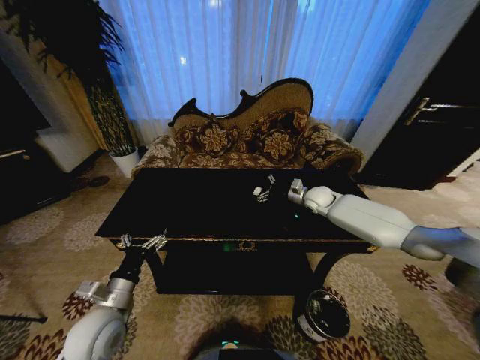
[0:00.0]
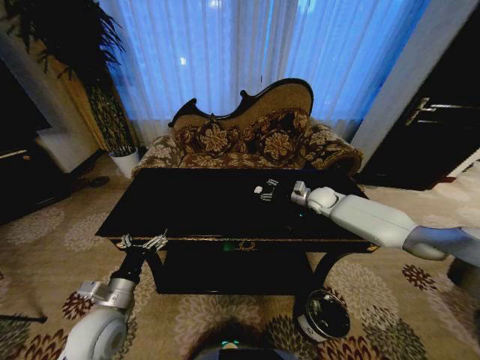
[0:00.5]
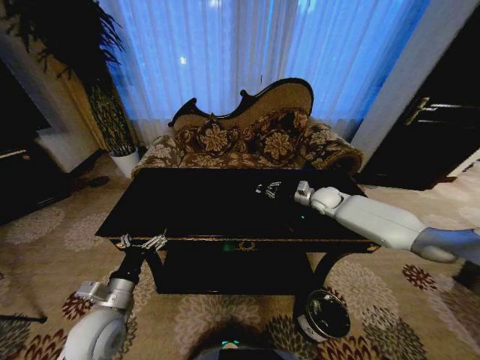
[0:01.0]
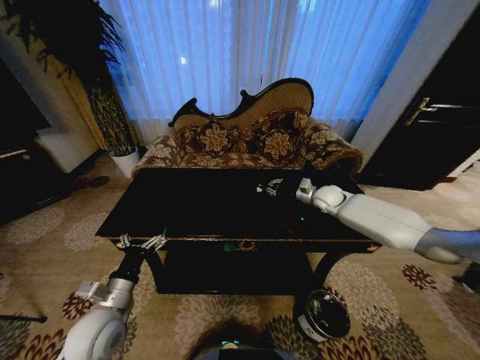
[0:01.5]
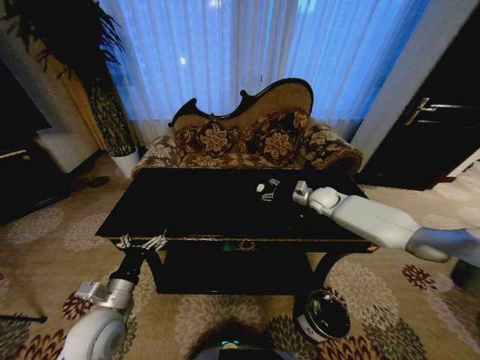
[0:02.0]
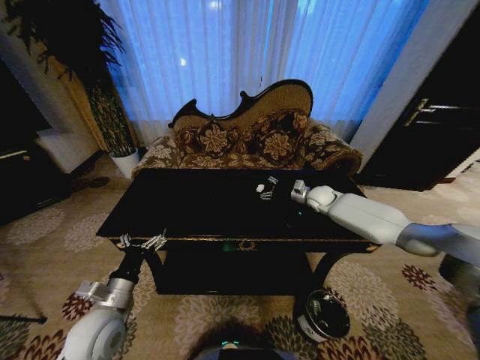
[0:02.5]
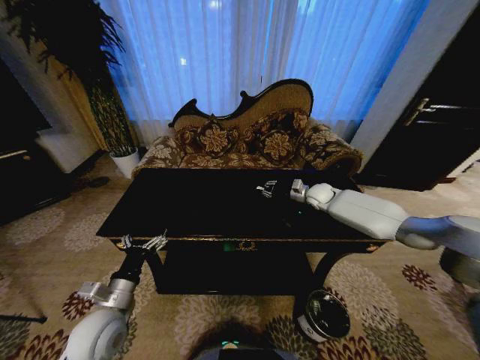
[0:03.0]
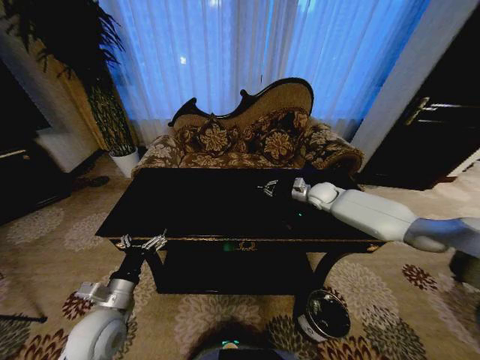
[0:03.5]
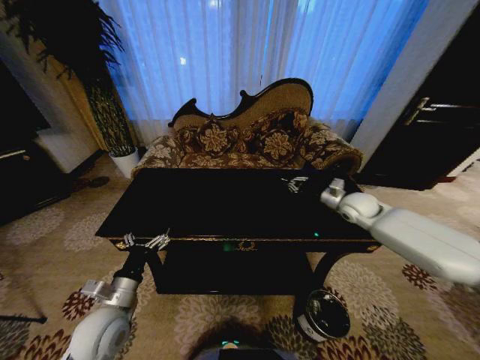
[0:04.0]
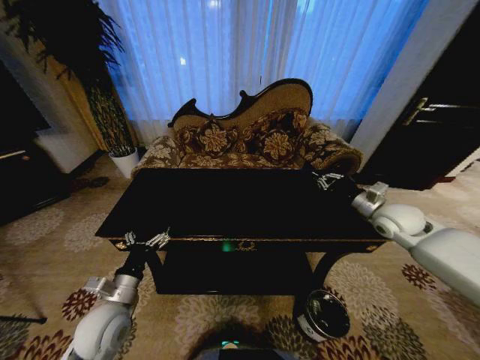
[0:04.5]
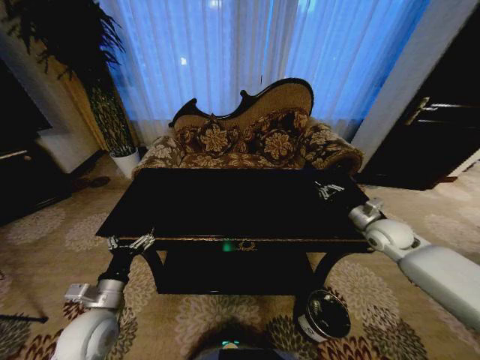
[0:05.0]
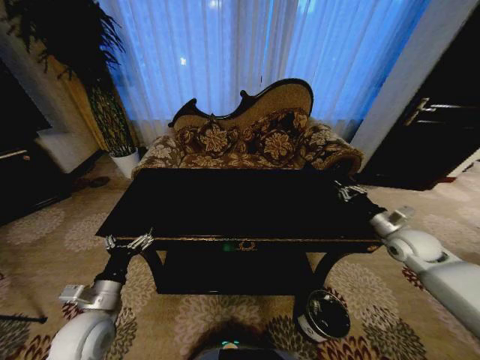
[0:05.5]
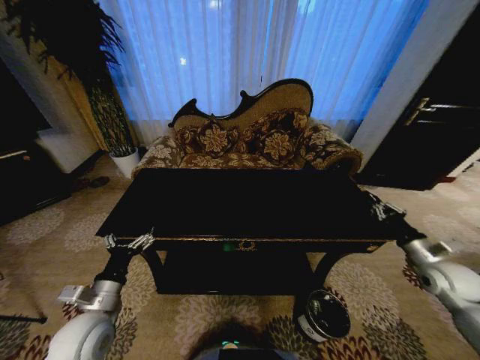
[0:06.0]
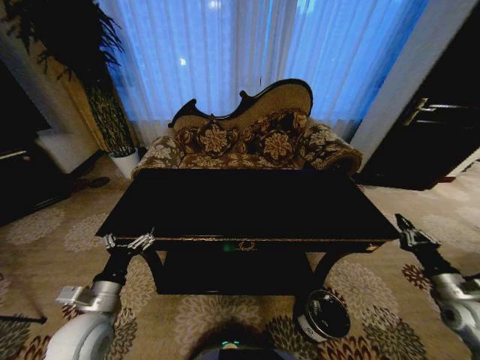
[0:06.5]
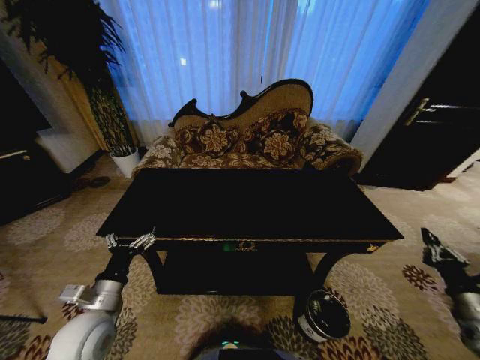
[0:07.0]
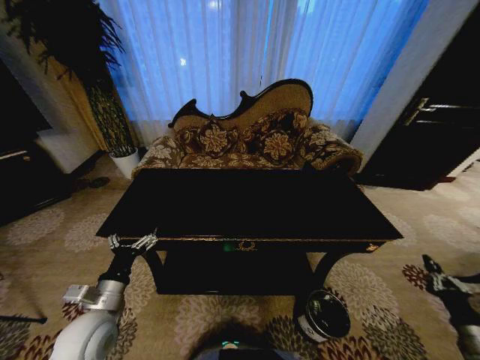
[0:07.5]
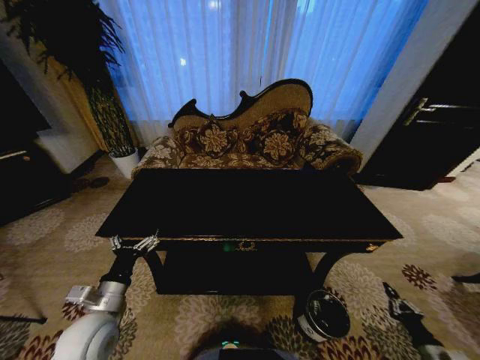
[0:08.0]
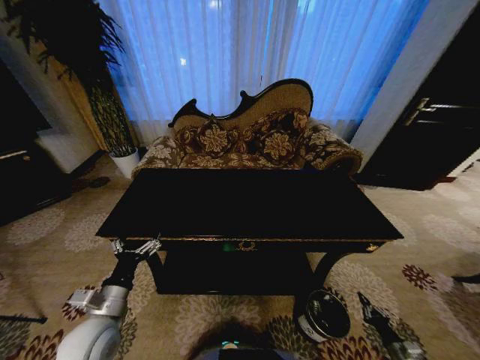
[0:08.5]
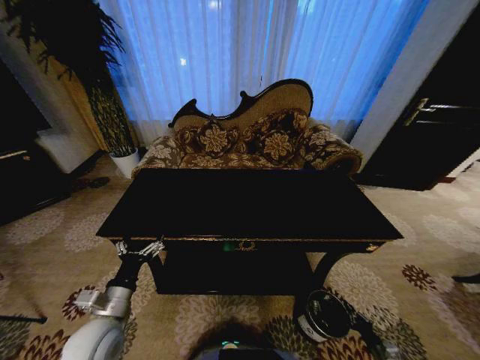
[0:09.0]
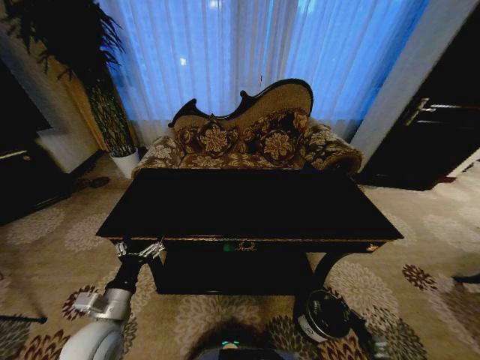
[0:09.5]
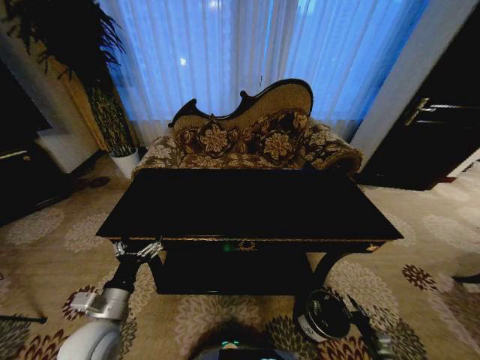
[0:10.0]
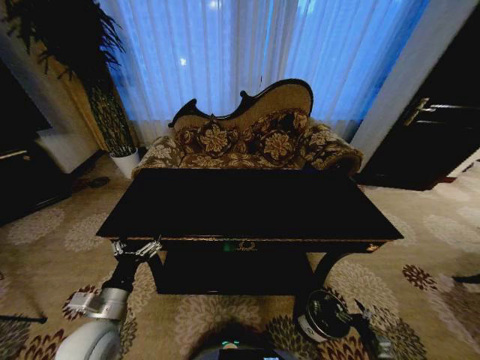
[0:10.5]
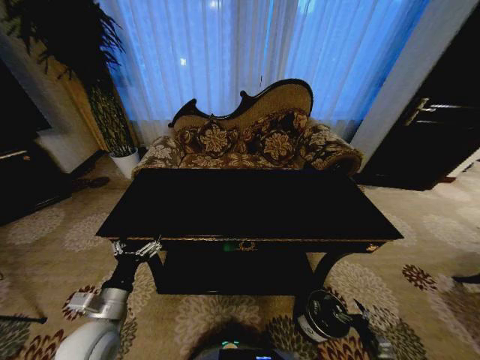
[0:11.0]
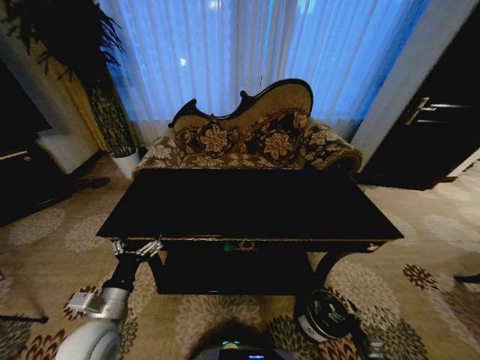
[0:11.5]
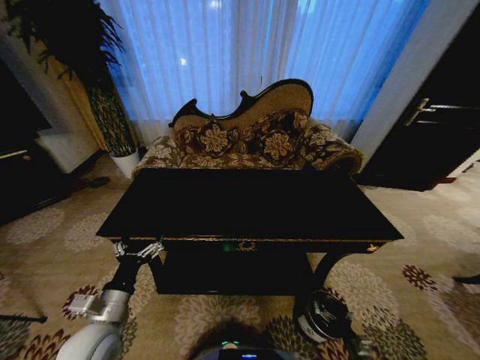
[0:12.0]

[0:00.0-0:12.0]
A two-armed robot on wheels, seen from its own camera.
Task of the whole recording: Move to the front of the table and place the trash on the table into the trash bin.
0:00.0 to 0:02.0: The right gripper closes, then reopens.
0:02.0 to 0:04.0: The right gripper travels backward and to the right by roughly 10 cm, and closes its fingers.
0:04.0 to 0:06.0: The right gripper is displaced backward and to the right by approximately 25 cm.
0:06.0 to 0:08.0: The right gripper heads downward and backward, covering some 30 cm.
0:08.0 to 0:10.0: The right gripper goes approximately 15 cm downward, and opens up.
0:10.0 to 0:12.0: The right gripper heads to the left, covering roughly 5 cm, and opens.

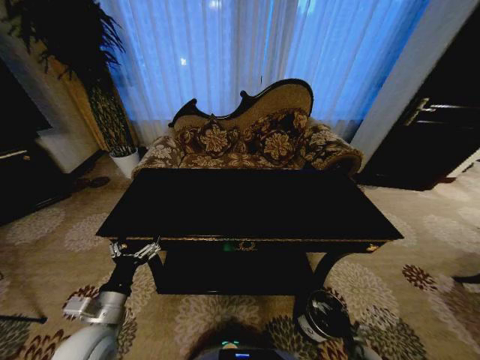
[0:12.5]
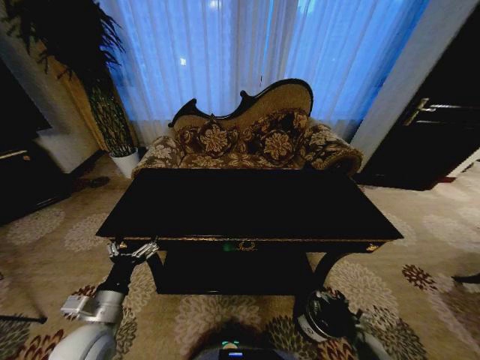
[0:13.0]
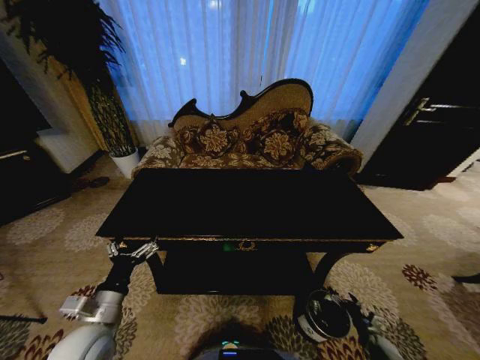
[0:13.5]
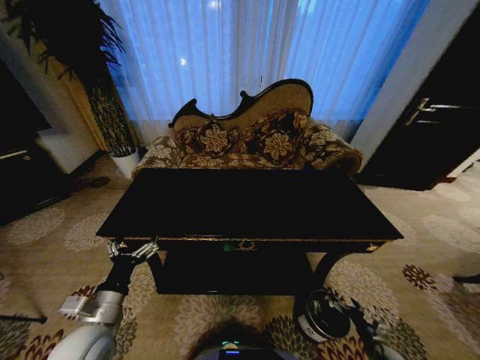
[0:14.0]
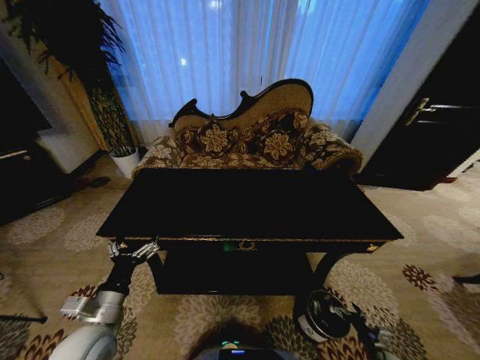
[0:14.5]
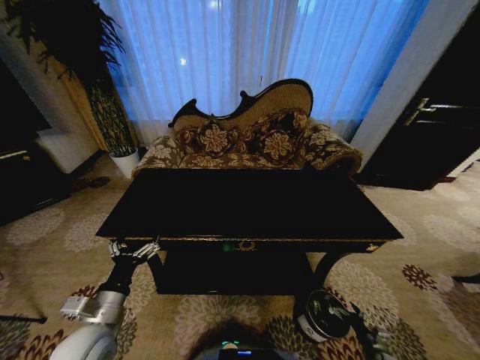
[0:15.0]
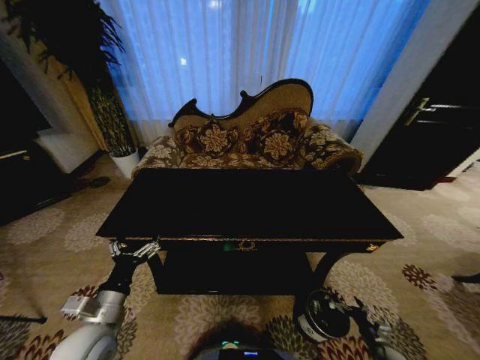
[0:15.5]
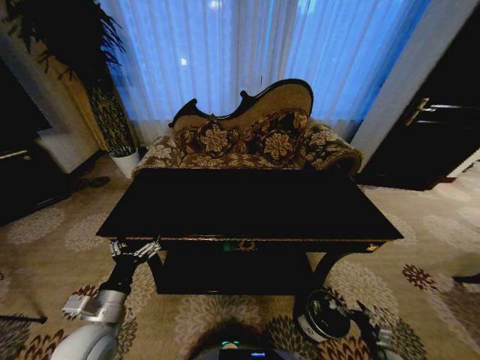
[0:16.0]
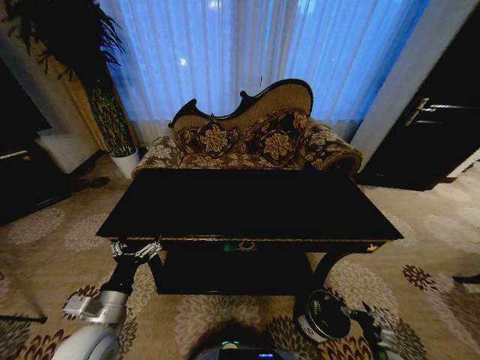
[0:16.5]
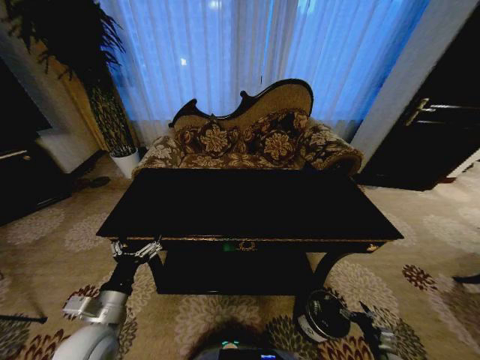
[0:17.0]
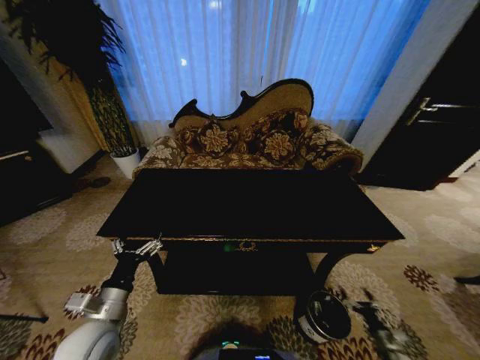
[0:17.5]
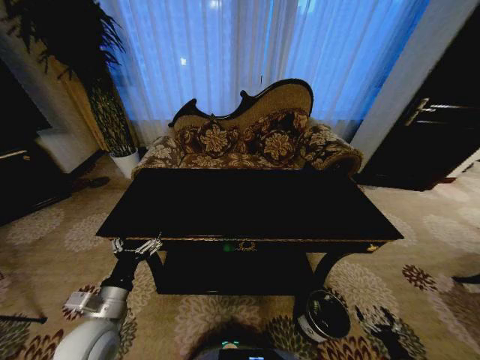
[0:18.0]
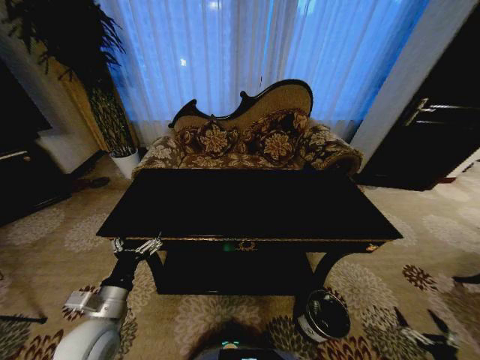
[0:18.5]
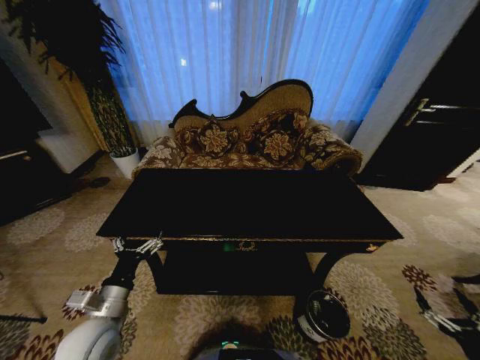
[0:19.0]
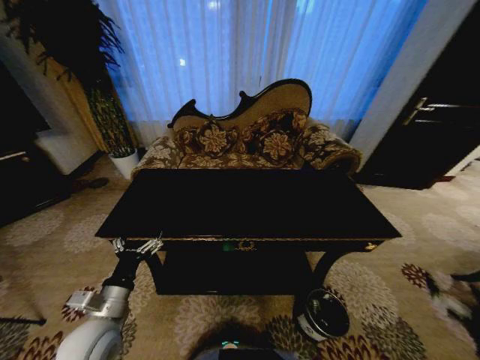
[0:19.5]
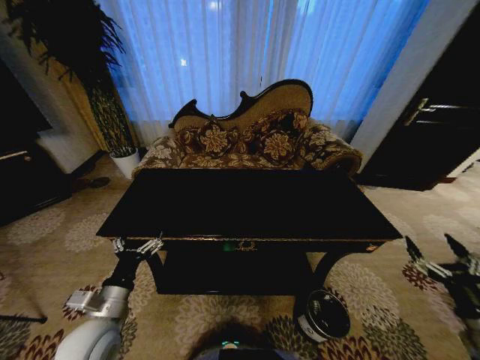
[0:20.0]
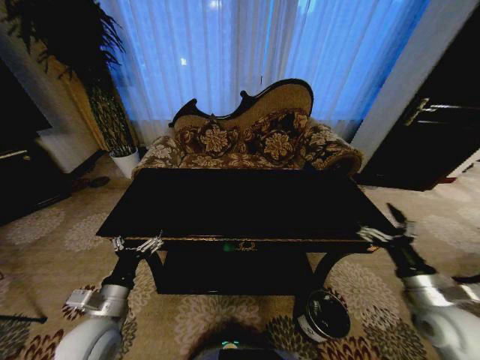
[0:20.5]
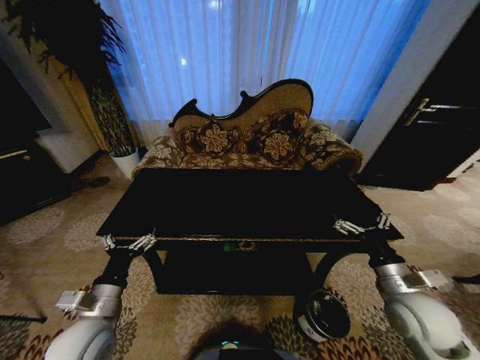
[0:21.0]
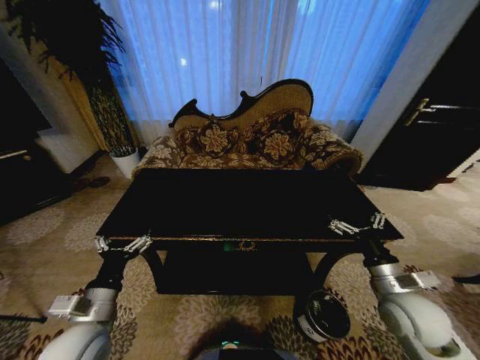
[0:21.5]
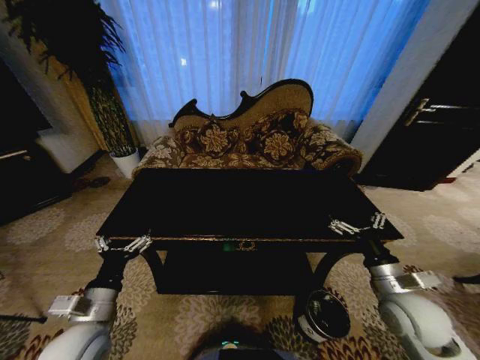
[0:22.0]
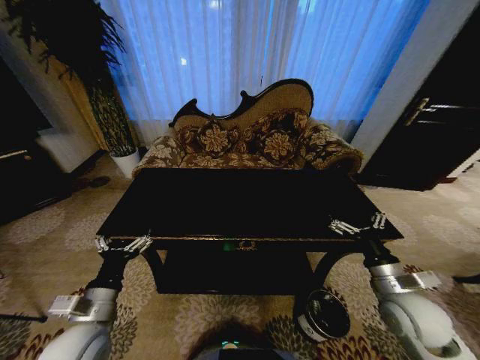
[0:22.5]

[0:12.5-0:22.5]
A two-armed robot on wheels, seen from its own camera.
Task of the whole recording: Move to the front of the table and place the trash on the table into the trash bin.
0:12.5 to 0:14.5: The right gripper is displaced to the right by roughly 5 cm.
0:14.5 to 0:16.5: There are only small adjustments of the grippers.
0:16.5 to 0:18.5: The right gripper goes about 20 cm backward, upward and to the right.
0:18.5 to 0:20.5: The right gripper shifts approximately 35 cm upward, forward and to the left.
0:20.5 to 0:22.5: The right gripper moves to the left, some 5 cm.

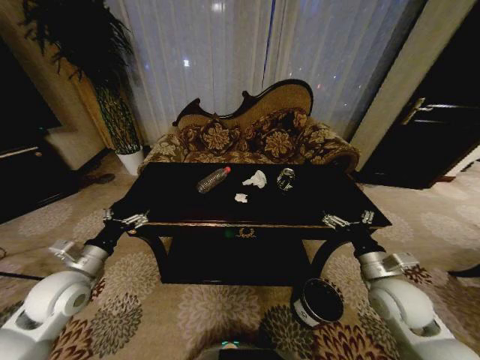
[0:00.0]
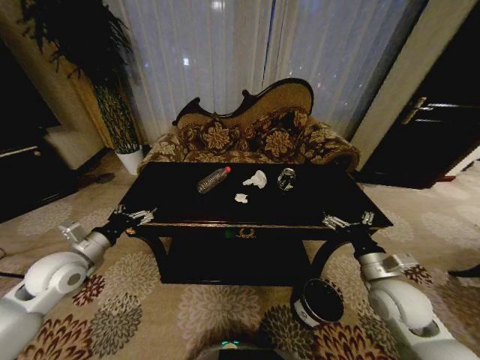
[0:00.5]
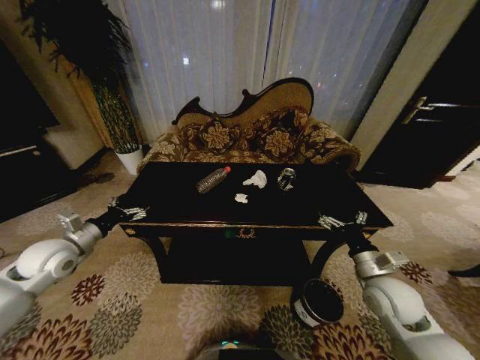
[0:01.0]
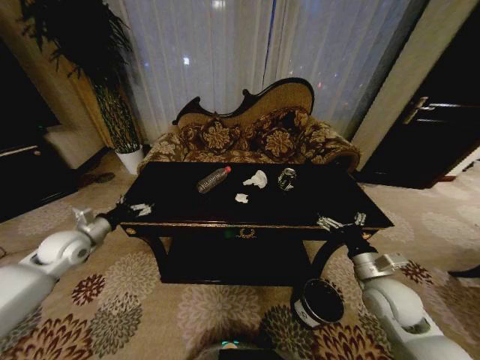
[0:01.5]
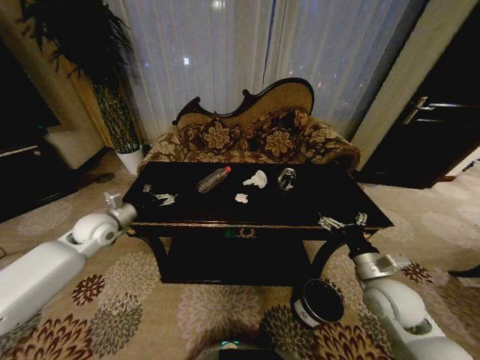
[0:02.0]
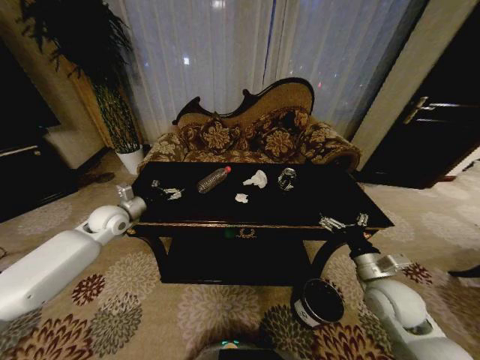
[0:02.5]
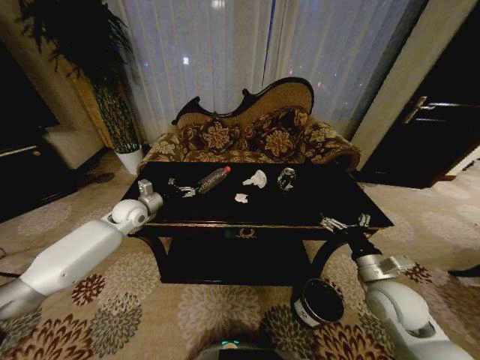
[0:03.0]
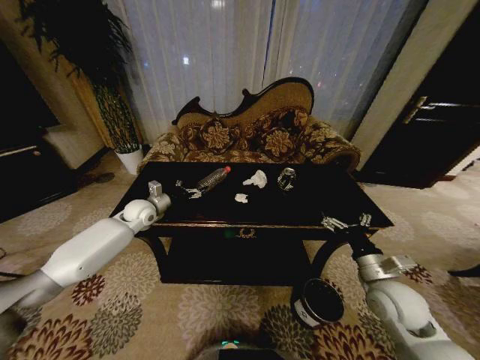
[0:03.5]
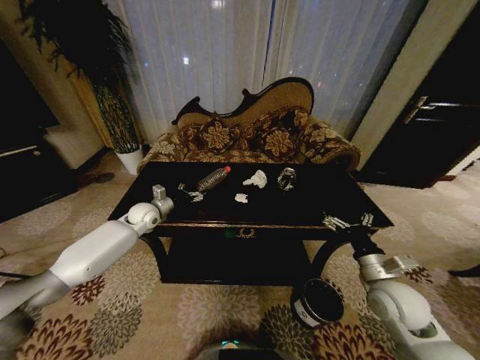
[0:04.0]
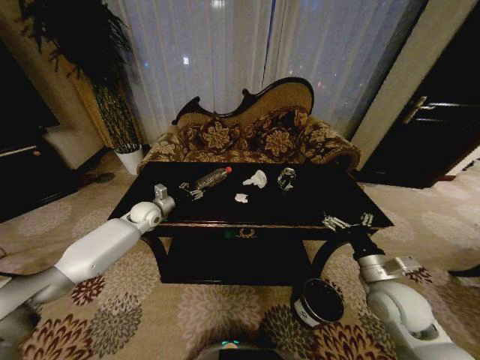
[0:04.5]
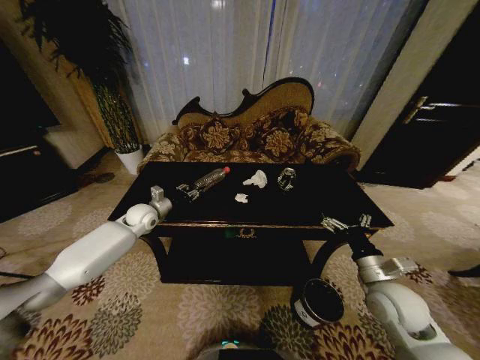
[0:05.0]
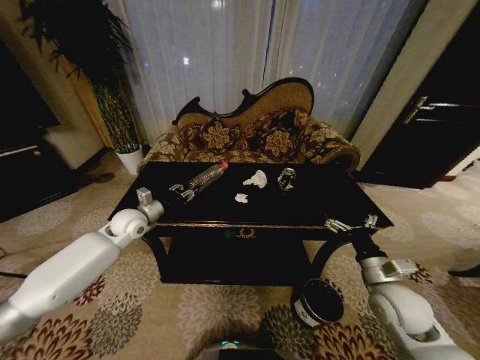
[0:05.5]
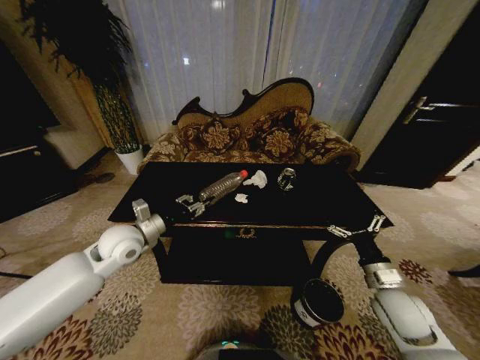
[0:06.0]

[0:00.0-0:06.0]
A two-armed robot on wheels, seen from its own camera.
Task of the whole recording: Move to the front of the table and place the trash on the table into the trash bin.
0:00.0 to 0:02.0: The left gripper travels forward by about 15 cm.
0:02.0 to 0:04.0: The left gripper moves forward, to the right and downward, approximately 15 cm.
0:04.0 to 0:06.0: The left gripper heads backward and upward, covering approximately 15 cm, and closes its fingers.
